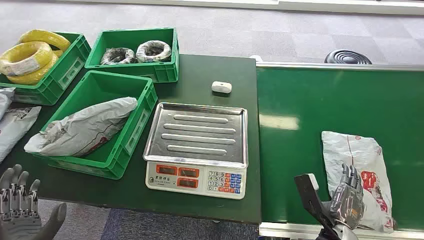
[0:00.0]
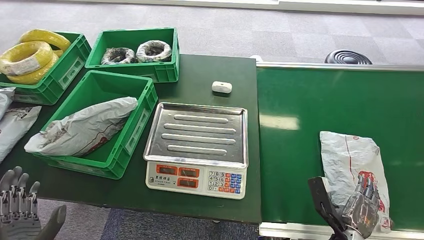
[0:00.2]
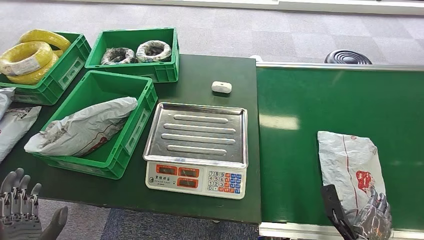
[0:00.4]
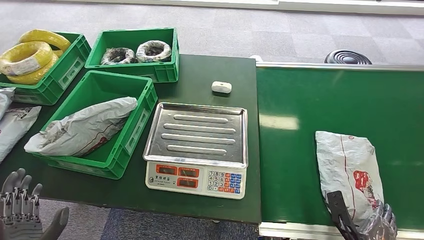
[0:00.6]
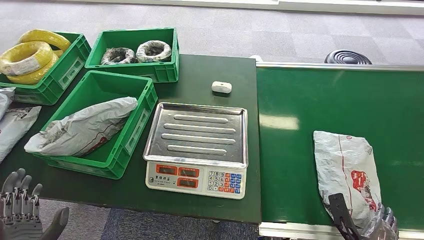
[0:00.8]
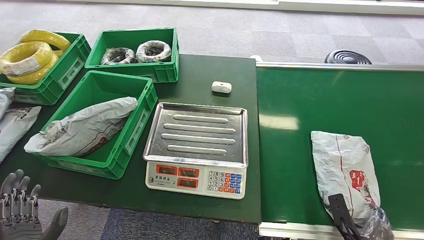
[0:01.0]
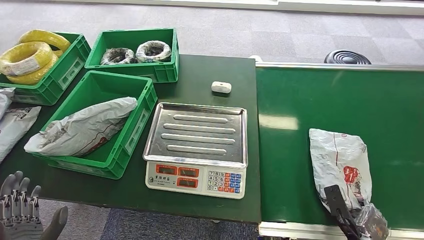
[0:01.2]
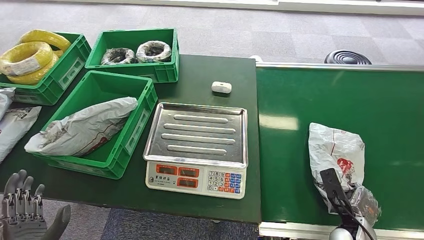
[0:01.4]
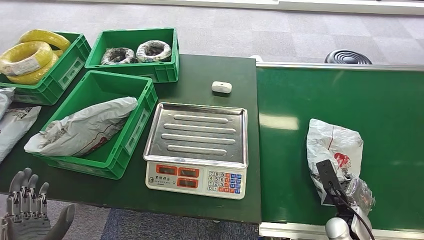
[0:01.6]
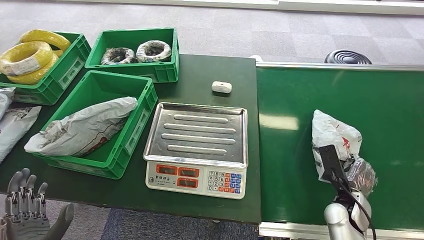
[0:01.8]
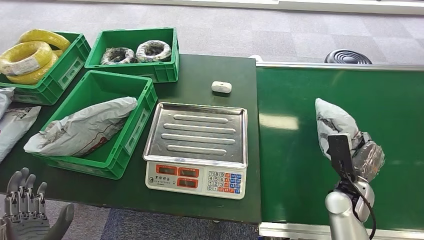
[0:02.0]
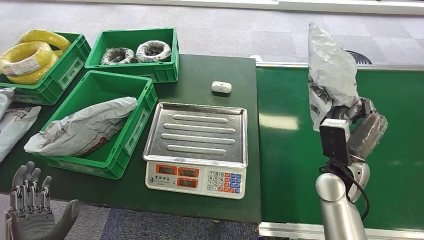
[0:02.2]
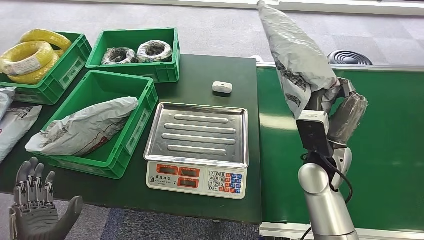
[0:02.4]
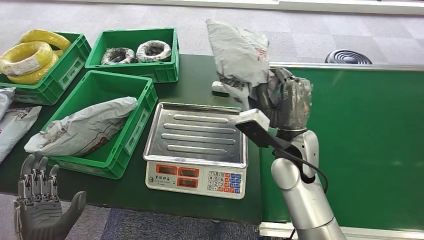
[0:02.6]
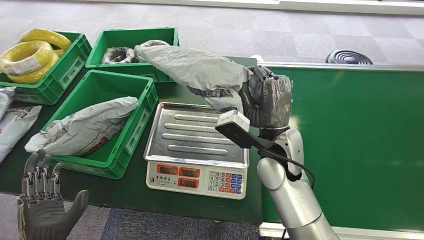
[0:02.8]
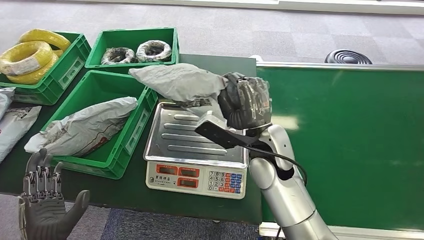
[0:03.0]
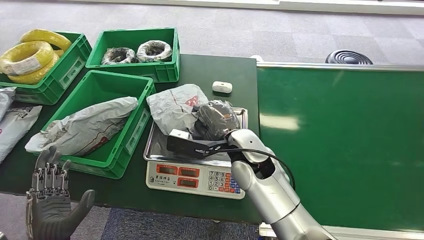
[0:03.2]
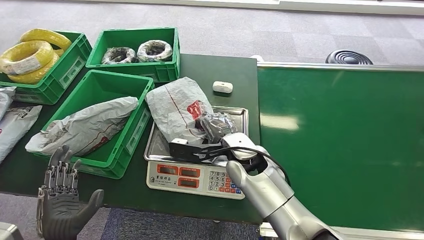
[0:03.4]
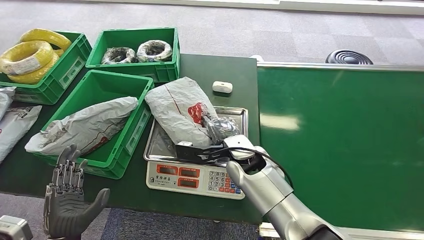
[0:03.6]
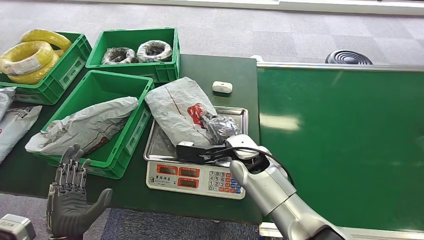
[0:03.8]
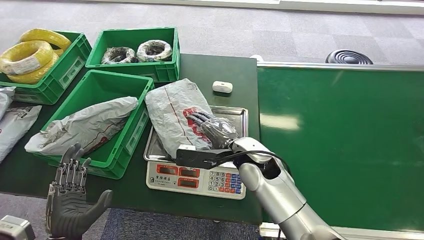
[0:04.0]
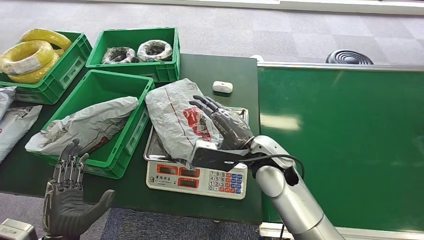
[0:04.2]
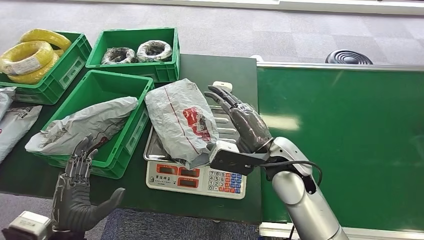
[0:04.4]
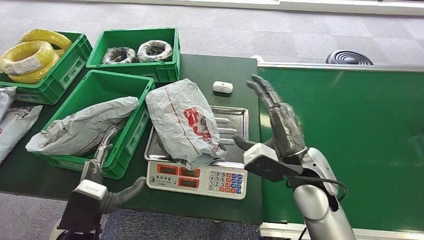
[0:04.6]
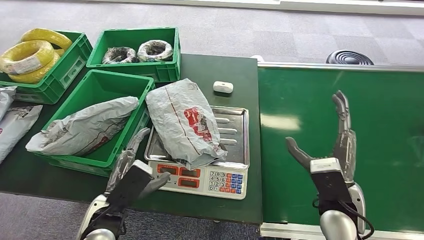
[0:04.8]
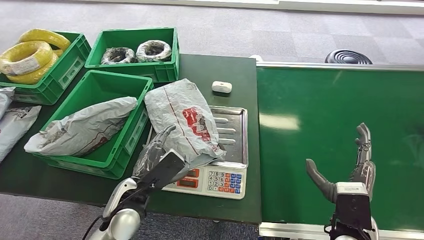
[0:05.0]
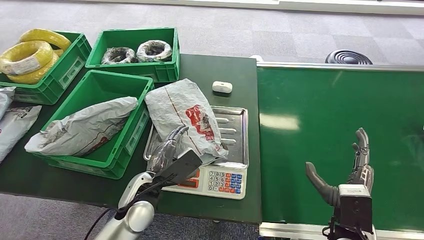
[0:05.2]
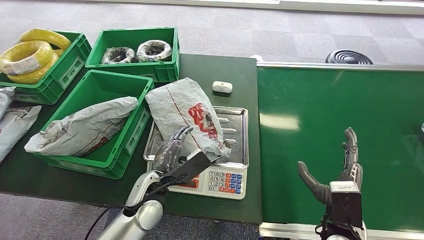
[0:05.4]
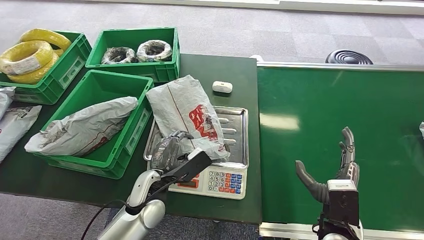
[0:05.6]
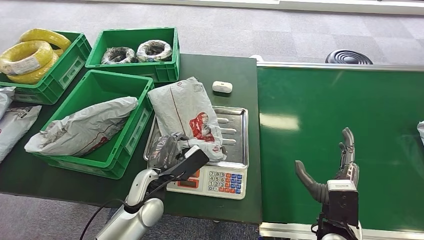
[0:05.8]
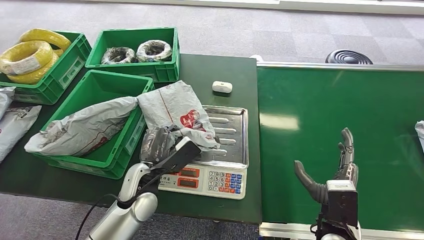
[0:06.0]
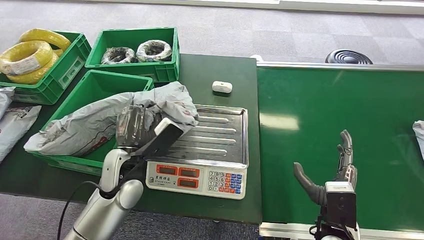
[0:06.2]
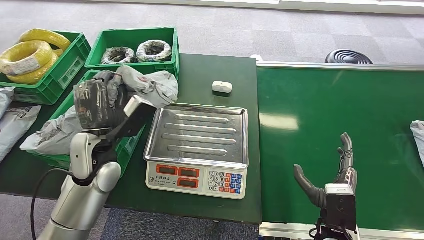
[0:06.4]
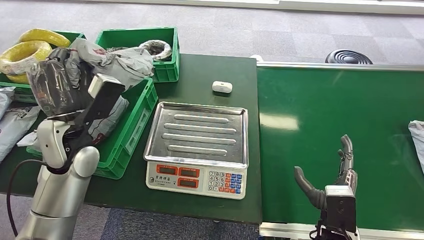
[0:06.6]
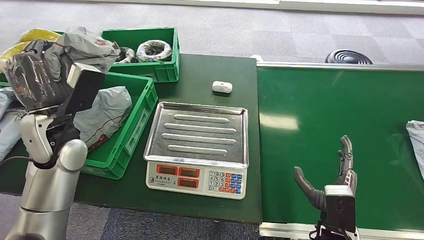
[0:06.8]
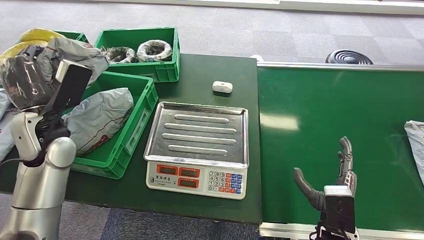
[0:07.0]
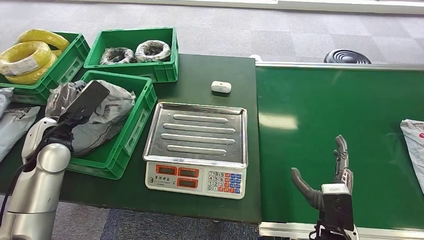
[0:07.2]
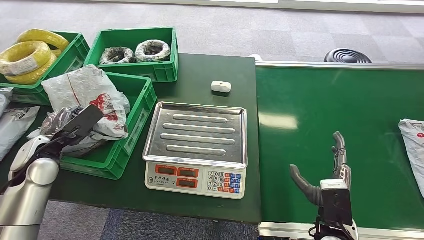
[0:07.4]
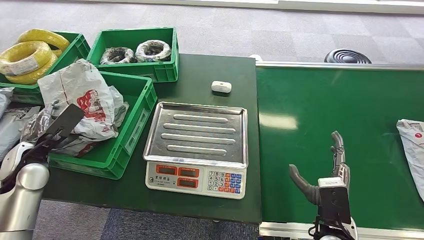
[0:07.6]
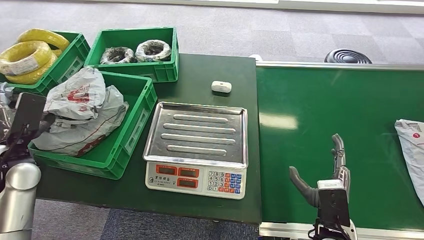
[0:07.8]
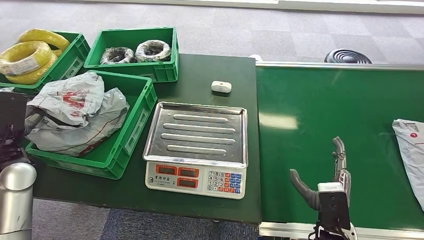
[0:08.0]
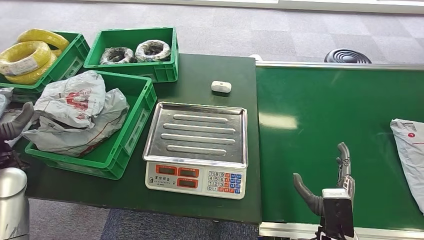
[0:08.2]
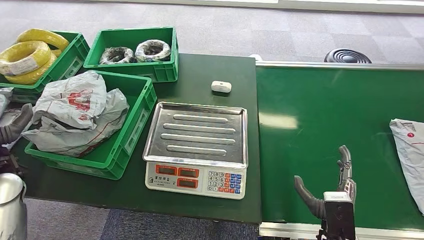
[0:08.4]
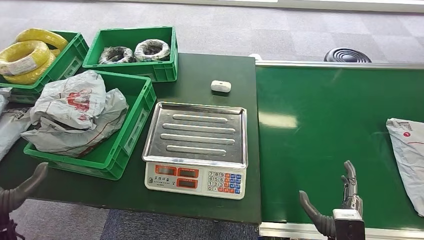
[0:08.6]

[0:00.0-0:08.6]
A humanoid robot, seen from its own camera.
Step, 0:00.0 to 0:02.0: Pick up the package from the conveyor belt.
Step, 0:02.2 to 0:03.8: Place the package onto the inbound machine.
Step, 0:04.0 to 0:06.4: Pick up the package from the inbound machine.
Step, 0:07.0 to 0:08.6: Place the package into the parcel locker.
0:04.4 to 0:05.8: The right hand travels to the right, downward and backward by some 20 cm; the left hand moves forward and to the right, roughly 20 cm.
